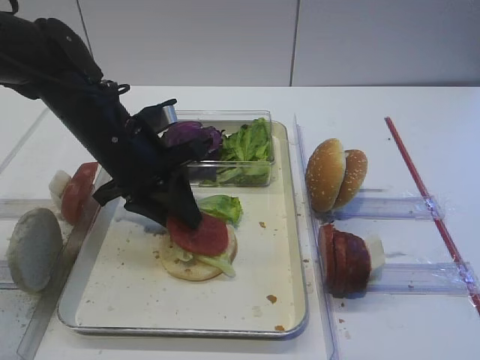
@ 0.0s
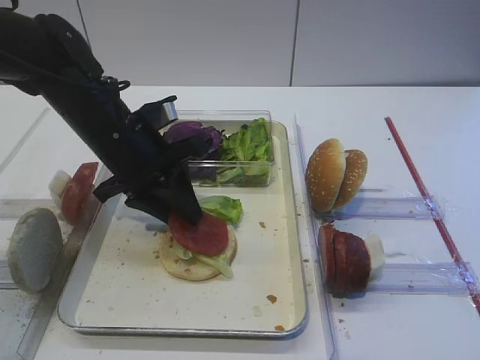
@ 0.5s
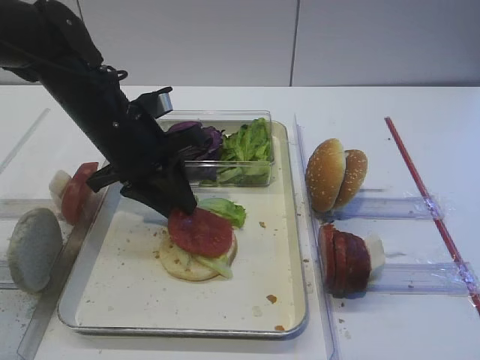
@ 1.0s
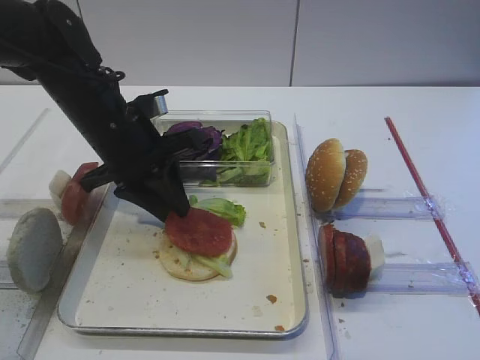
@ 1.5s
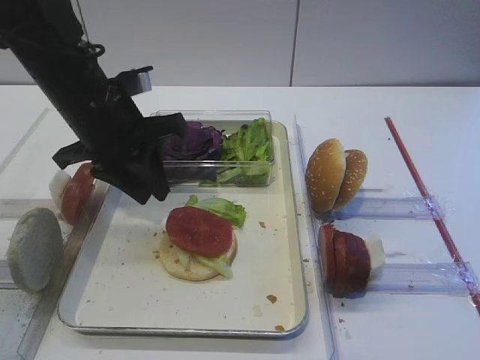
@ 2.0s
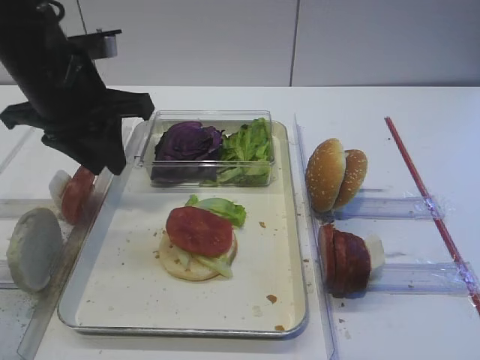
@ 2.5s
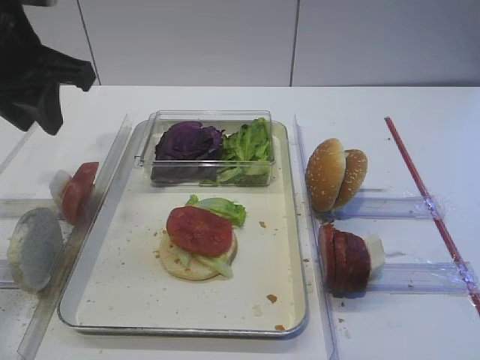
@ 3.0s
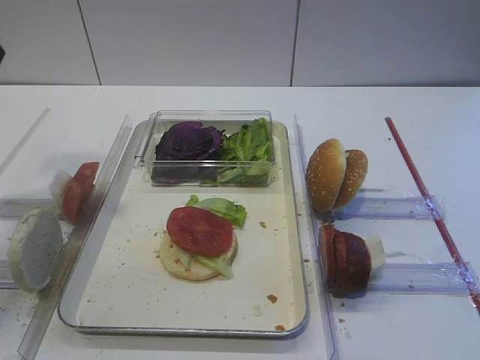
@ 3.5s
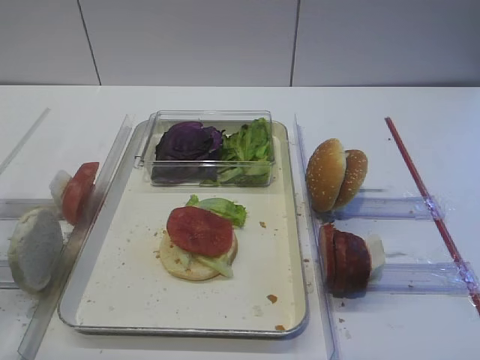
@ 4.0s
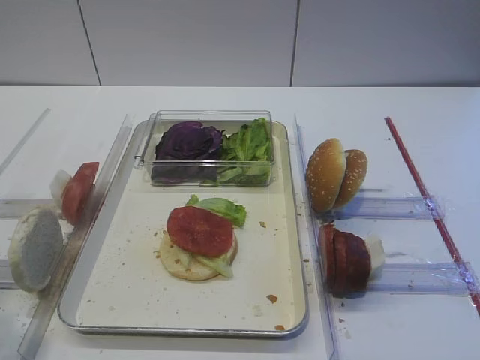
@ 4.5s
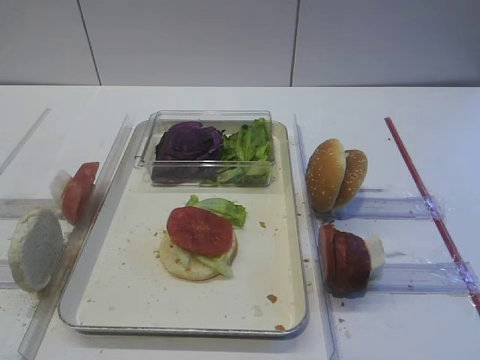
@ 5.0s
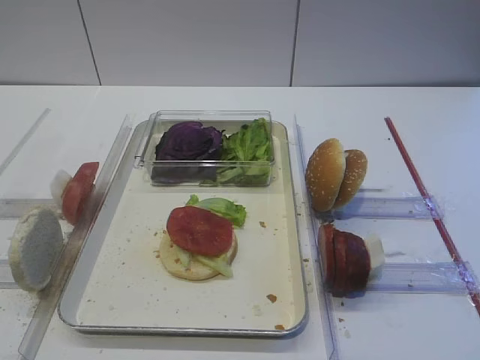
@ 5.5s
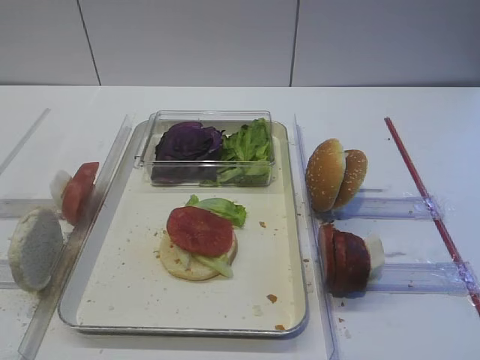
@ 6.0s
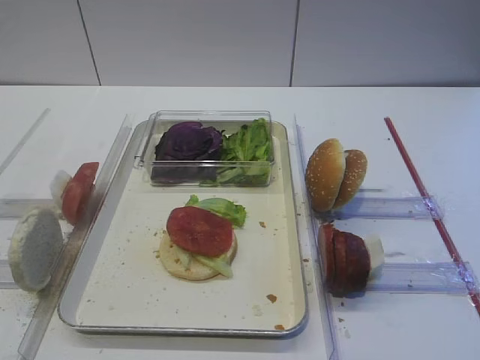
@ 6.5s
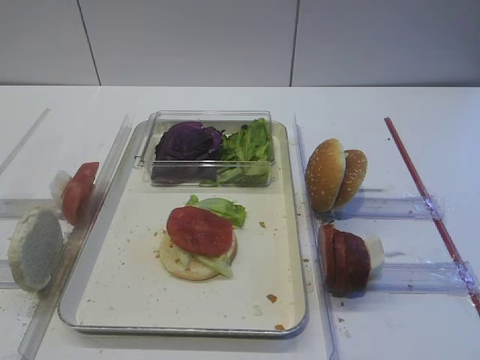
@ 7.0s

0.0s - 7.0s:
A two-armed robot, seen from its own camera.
Step, 0.0s - 2.0s: Place the tomato slice on the lettuce leaf with the left gripper.
0.0s - 2.0s: There are only small adjustments of the grippers.
2.0s - 3.5s: The left gripper is displaced upward, to the left and backward by some 20 cm.
3.5s - 5.0s: The left gripper heads backward, covering approximately 20 cm.

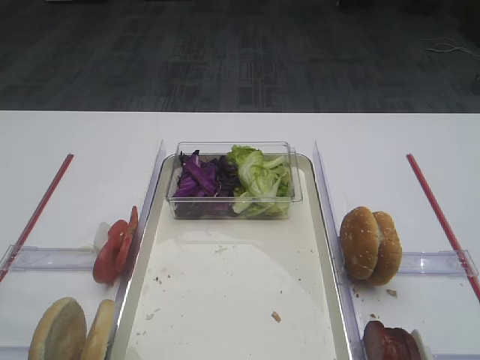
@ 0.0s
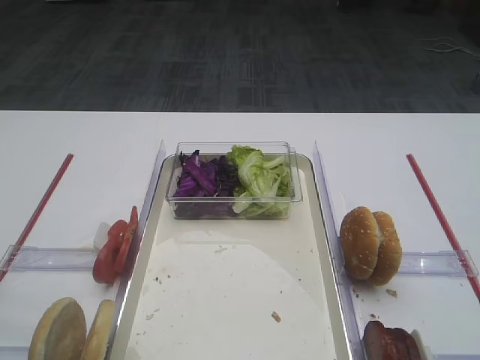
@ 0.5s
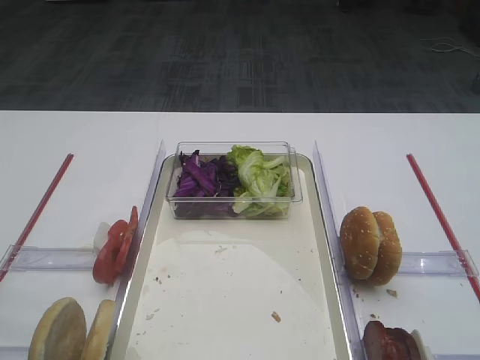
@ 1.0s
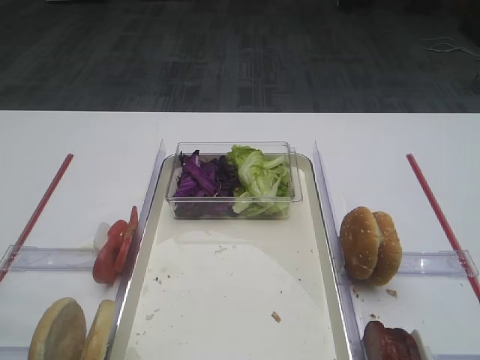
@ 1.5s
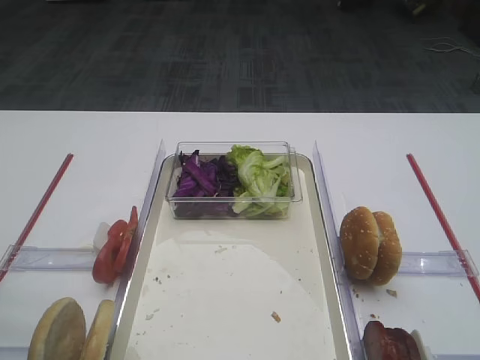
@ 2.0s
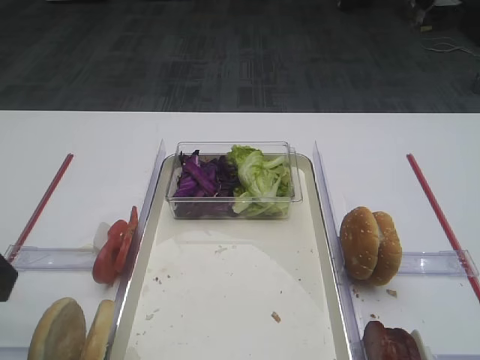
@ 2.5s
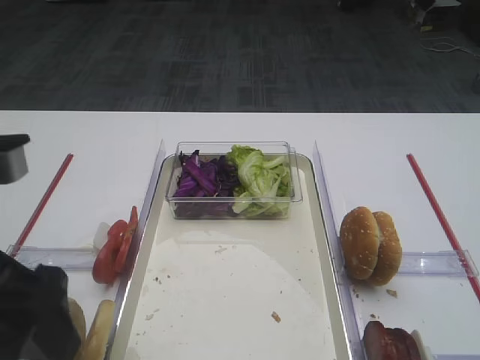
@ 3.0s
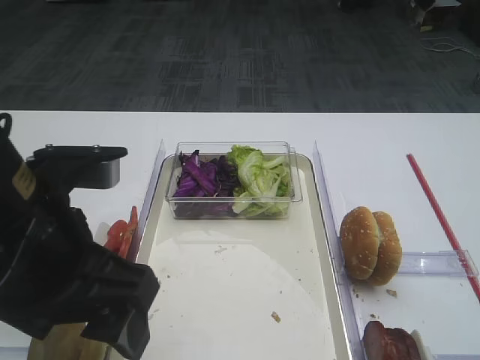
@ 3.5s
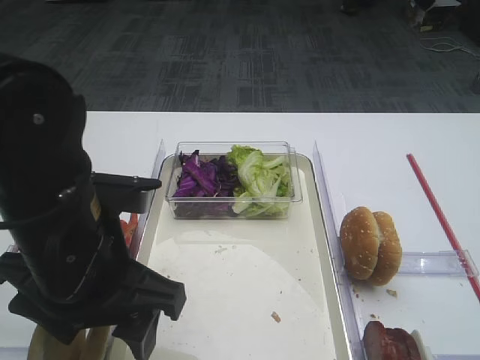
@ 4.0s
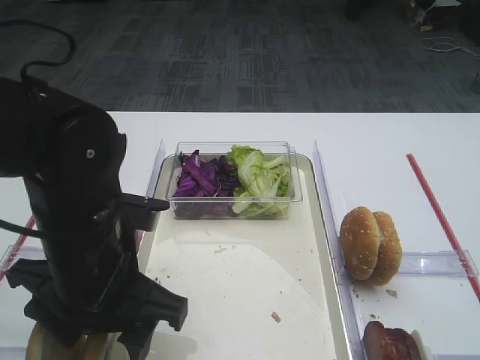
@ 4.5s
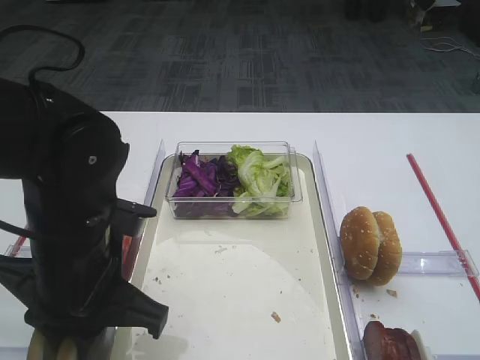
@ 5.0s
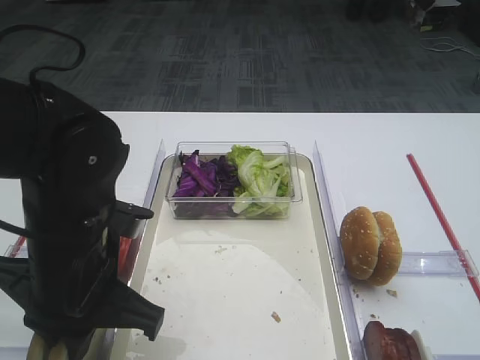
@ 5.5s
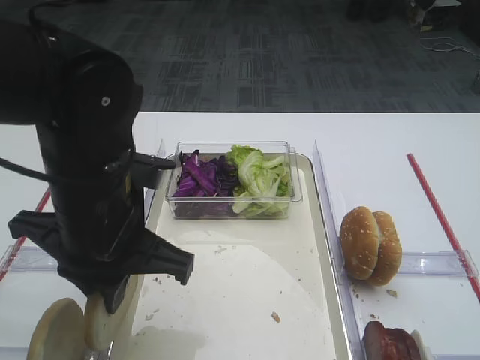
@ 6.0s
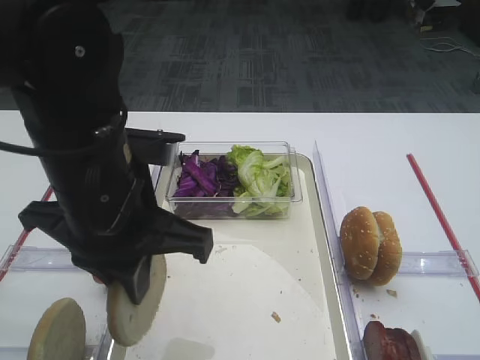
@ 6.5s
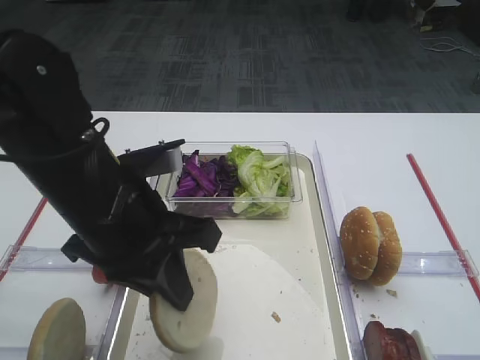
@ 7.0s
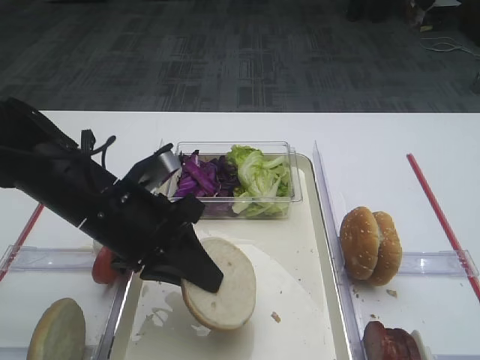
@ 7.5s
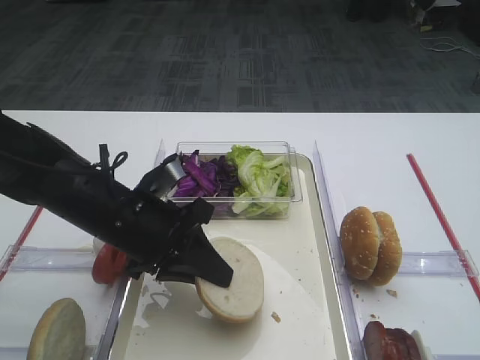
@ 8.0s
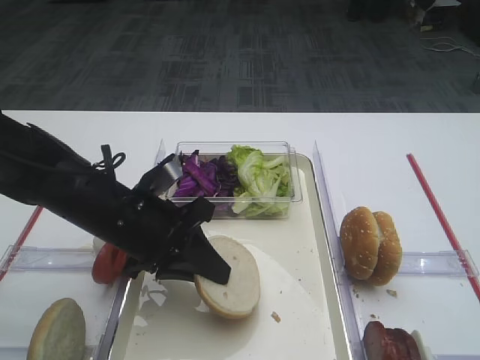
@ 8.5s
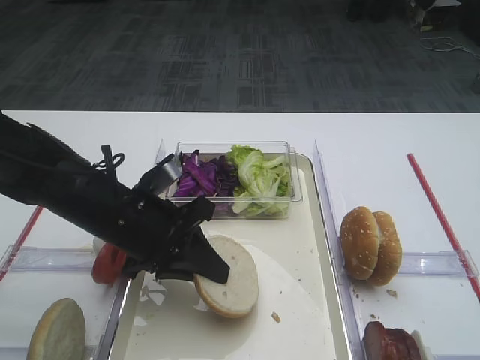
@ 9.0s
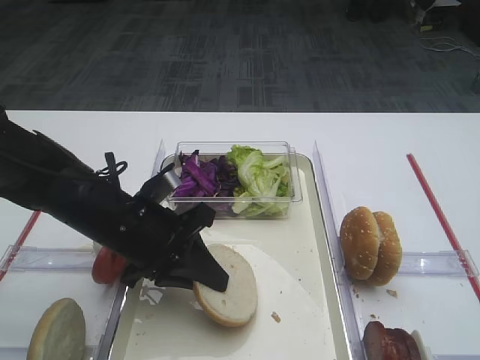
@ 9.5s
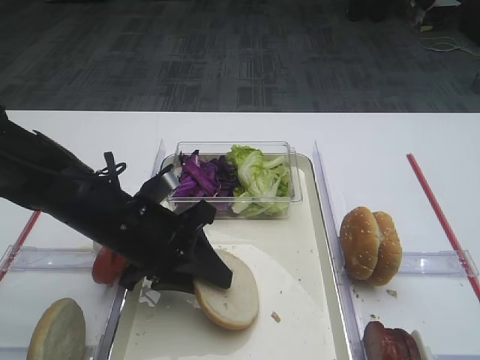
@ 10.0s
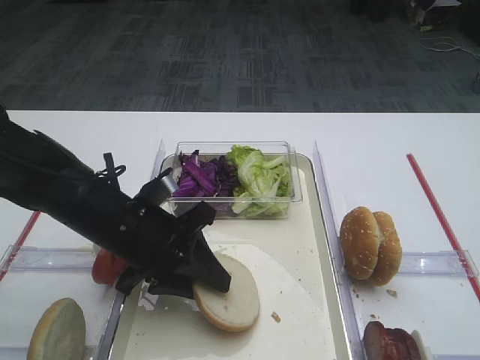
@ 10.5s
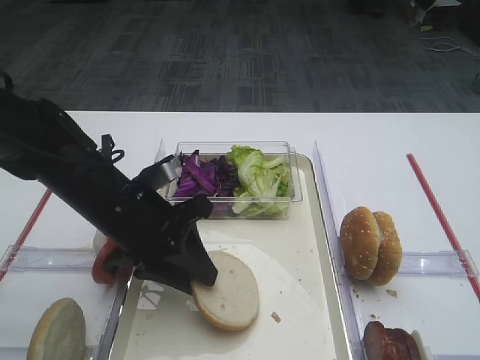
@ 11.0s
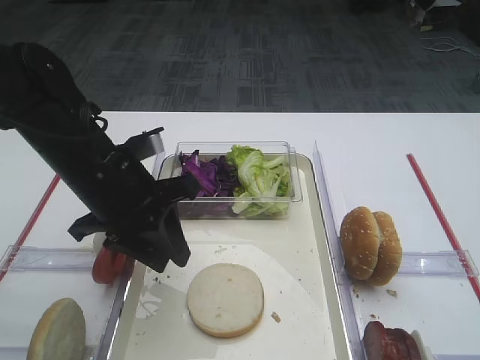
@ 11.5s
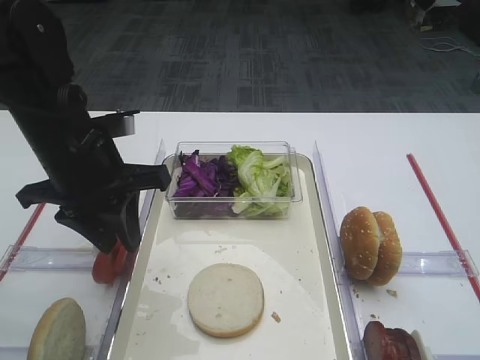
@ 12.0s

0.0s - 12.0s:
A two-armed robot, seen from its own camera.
Step, 0.0s - 6.0s: Pick up the bread slice with the left gripper.
Step, 6.5s - 11.5s: Place the bread slice on the tray with the left gripper.
2.0s - 4.0s: The left gripper is displaced to the right, downward and forward by roughly 20 cm.
4.0s - 6.0s: The left gripper closes up.
6.0s - 8.0s: The left gripper shifts roughly 10 cm downward.
8.0s - 10.0s: The grippers stay close to where they were, moving slightly.
10.0s - 12.0s: The left gripper is displaced upward by approximately 10 cm.

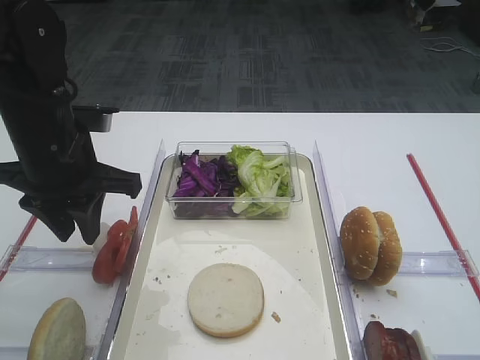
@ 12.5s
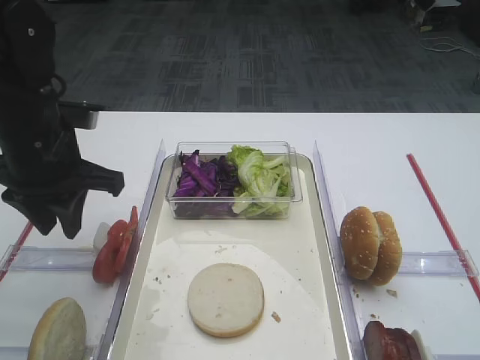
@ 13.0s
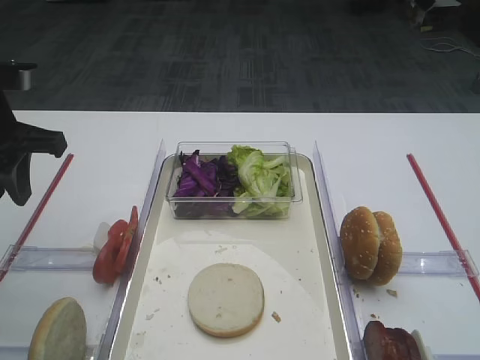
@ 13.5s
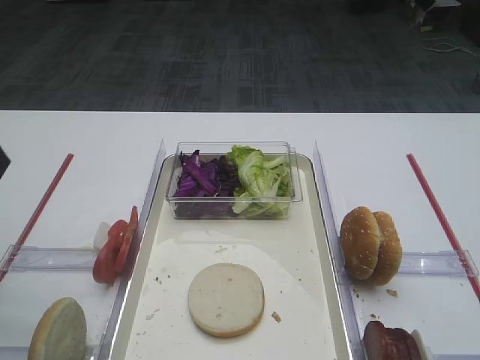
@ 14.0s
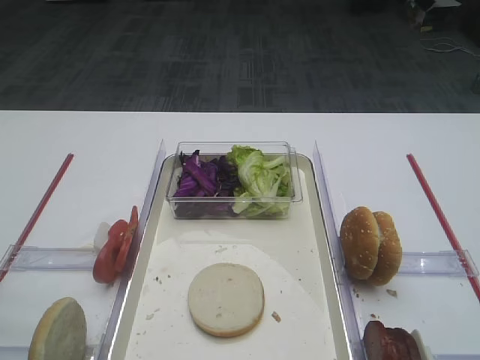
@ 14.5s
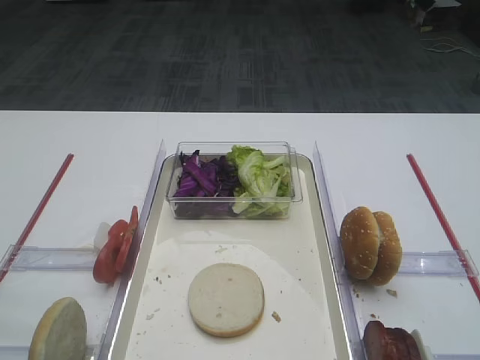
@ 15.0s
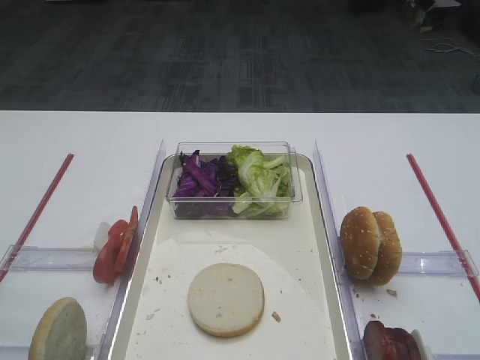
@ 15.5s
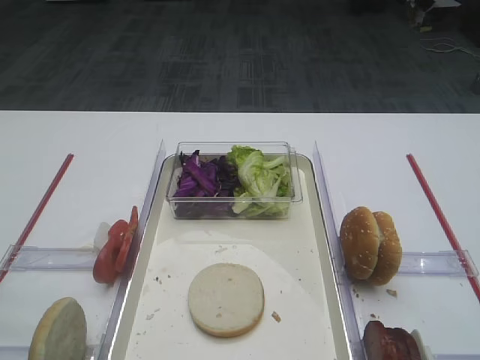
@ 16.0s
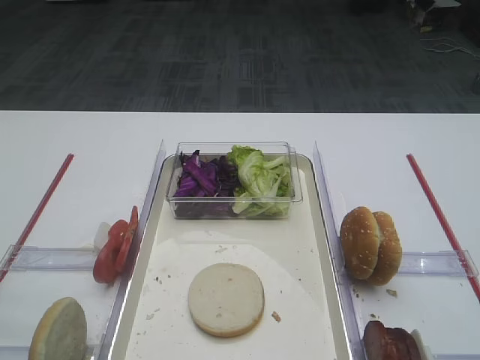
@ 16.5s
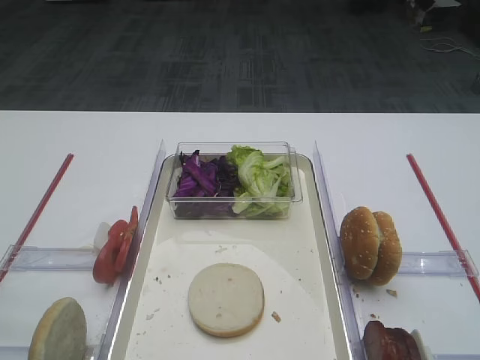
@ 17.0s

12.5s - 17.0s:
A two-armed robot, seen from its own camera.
12.5s - 14.5s: The left gripper heads backward and to the left, covering roughly 25 cm.

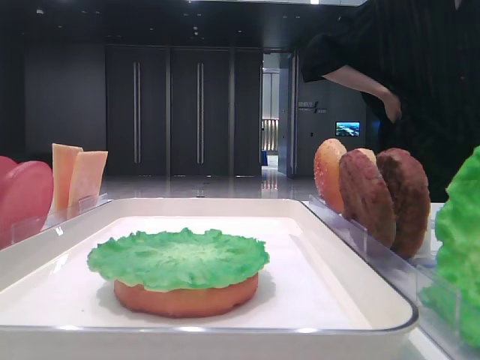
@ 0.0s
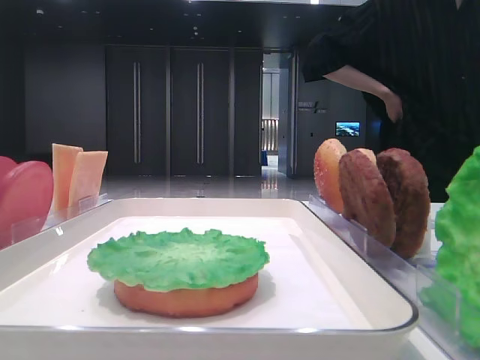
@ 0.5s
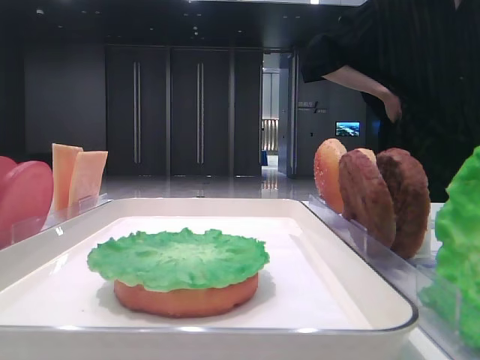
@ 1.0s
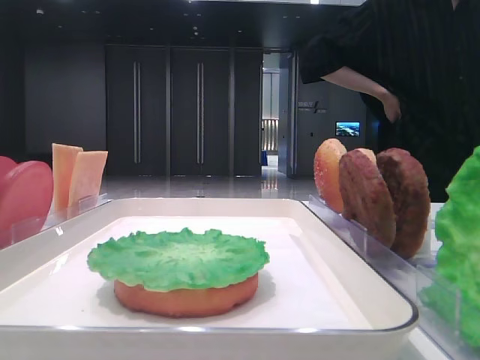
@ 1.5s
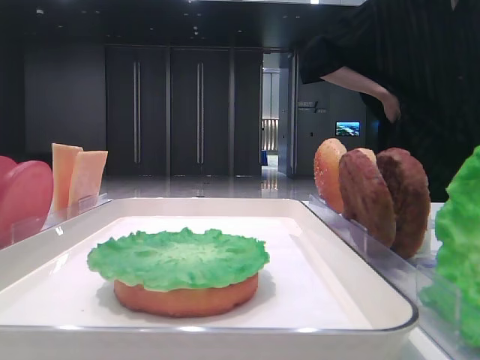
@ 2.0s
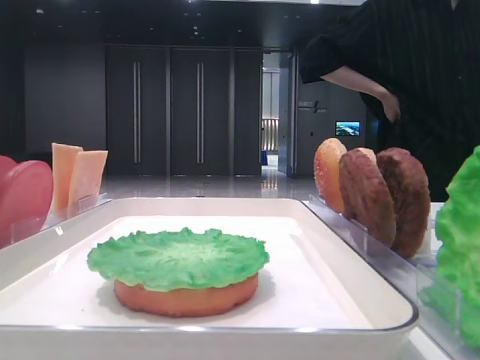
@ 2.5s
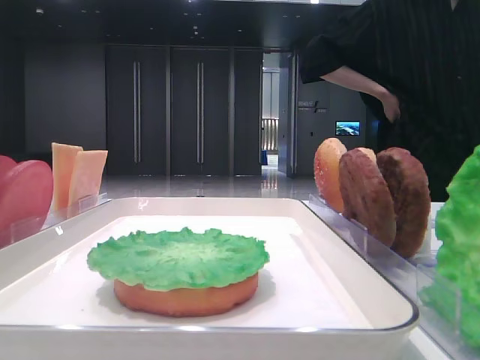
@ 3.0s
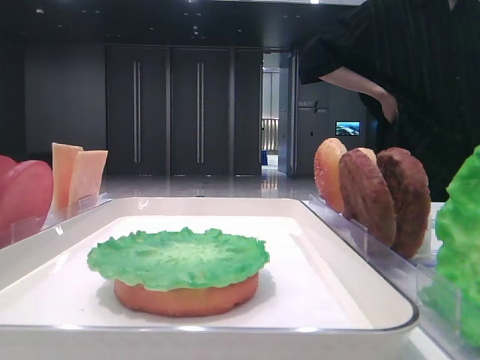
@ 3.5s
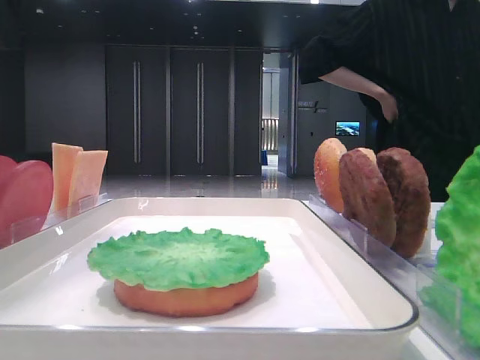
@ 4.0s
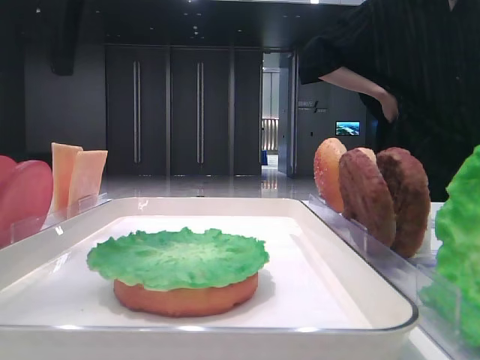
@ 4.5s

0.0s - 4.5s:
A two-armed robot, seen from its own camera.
2.0s - 4.5s: The left gripper heads forward and to the right, covering about 25 cm.
